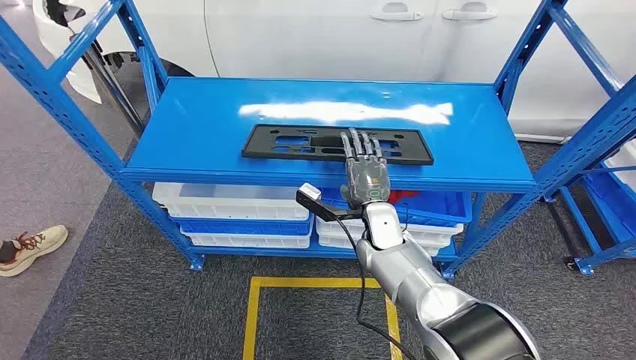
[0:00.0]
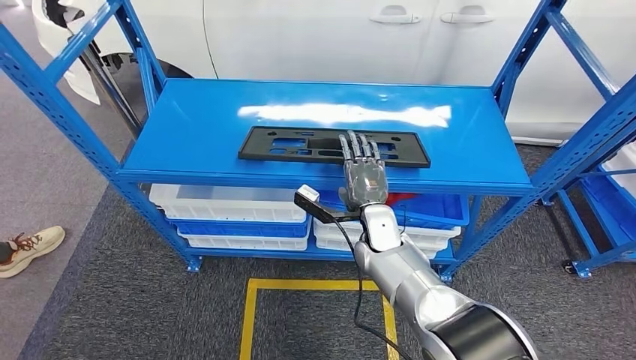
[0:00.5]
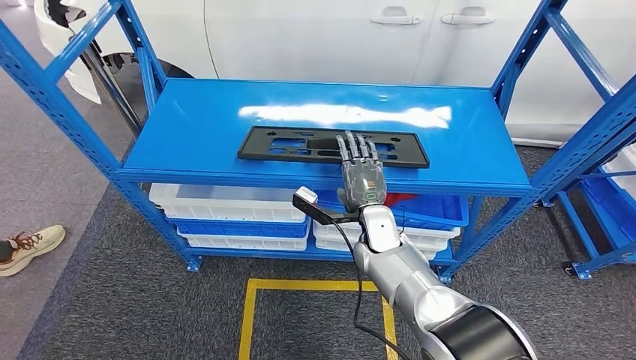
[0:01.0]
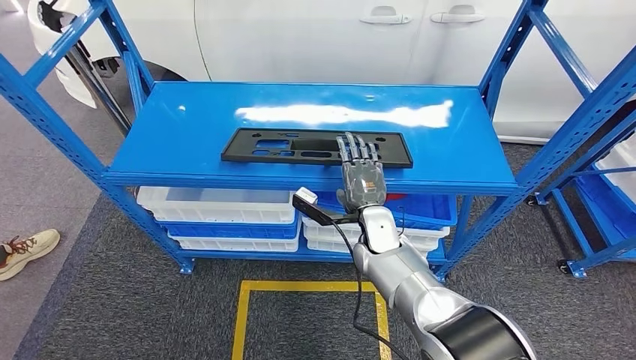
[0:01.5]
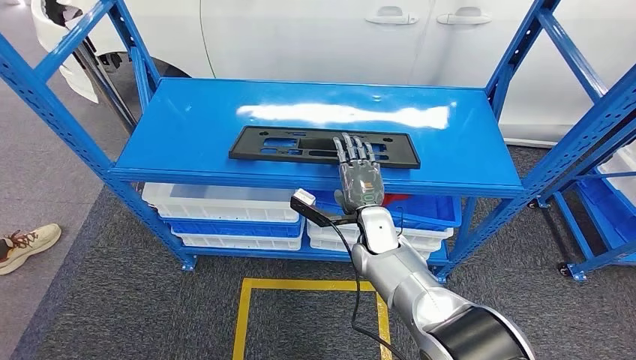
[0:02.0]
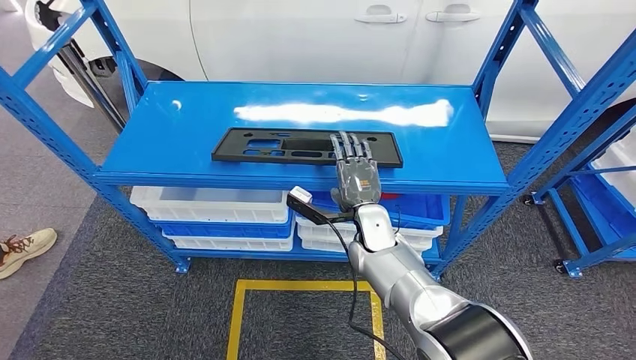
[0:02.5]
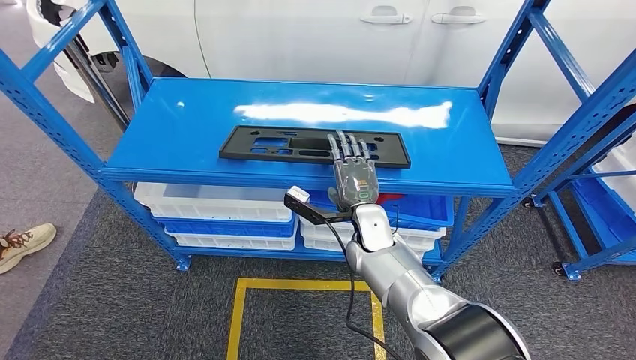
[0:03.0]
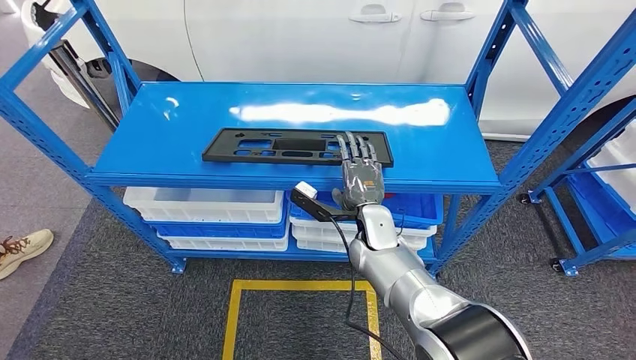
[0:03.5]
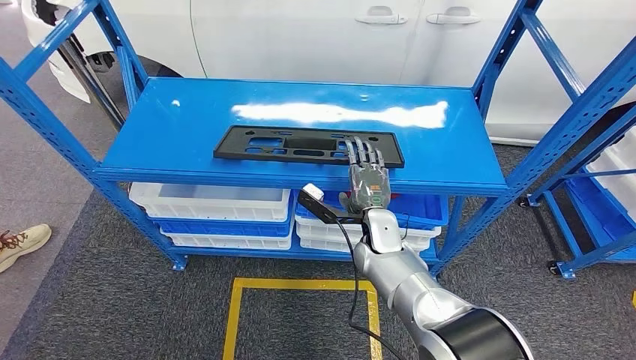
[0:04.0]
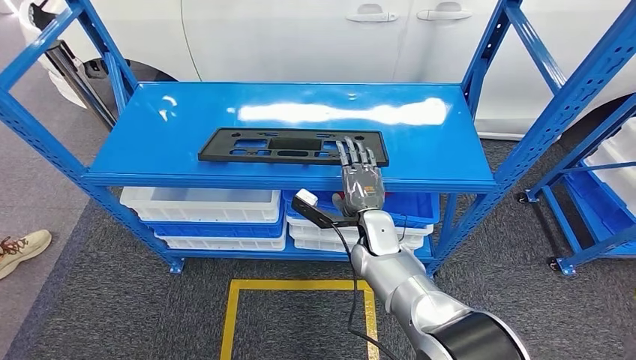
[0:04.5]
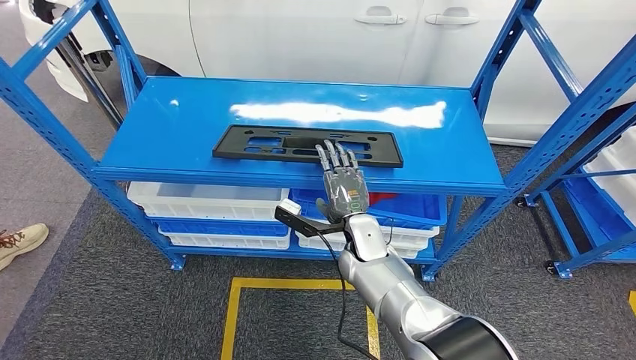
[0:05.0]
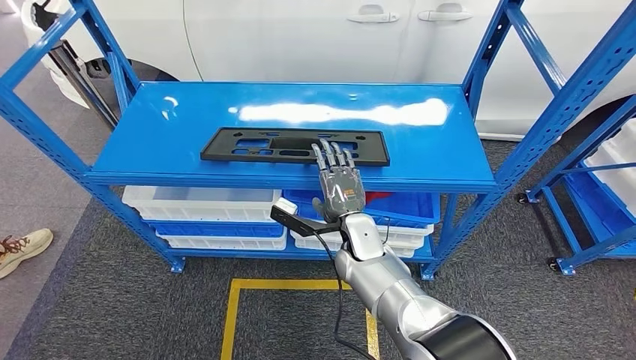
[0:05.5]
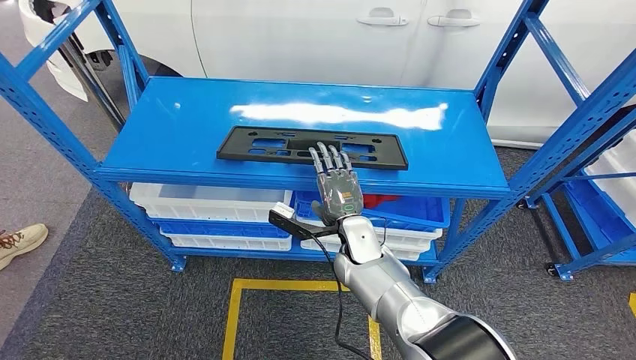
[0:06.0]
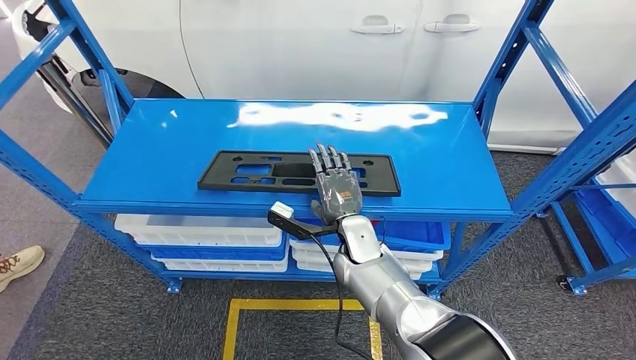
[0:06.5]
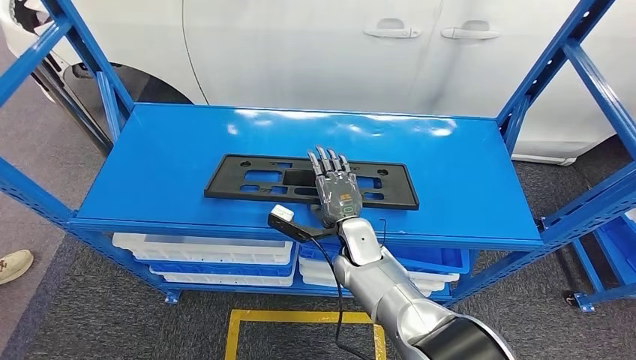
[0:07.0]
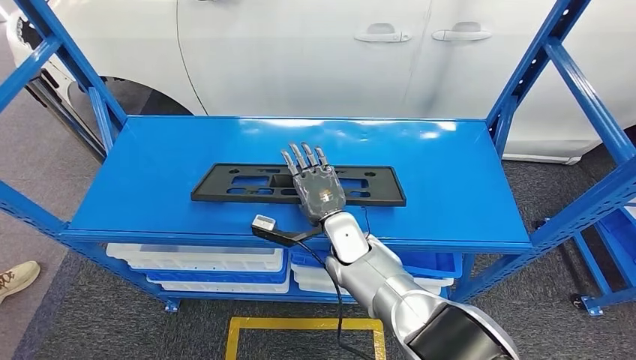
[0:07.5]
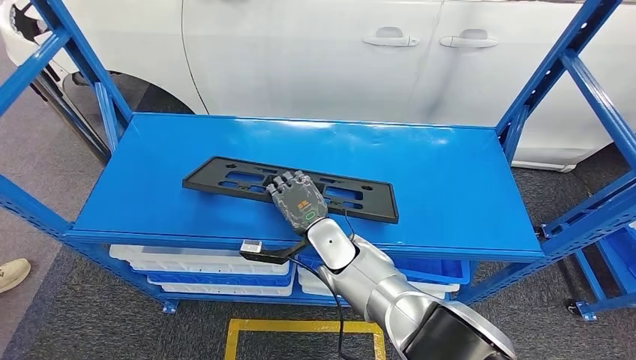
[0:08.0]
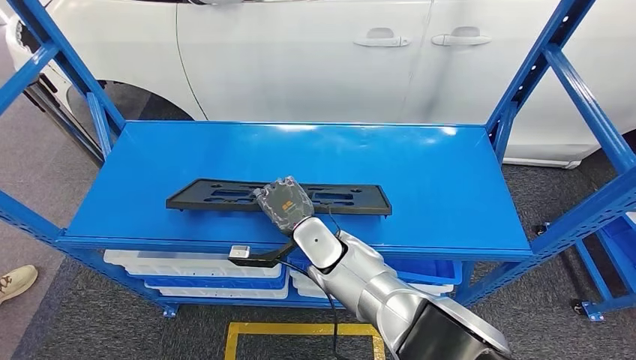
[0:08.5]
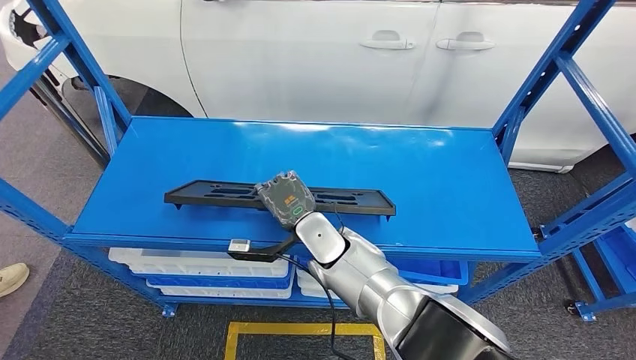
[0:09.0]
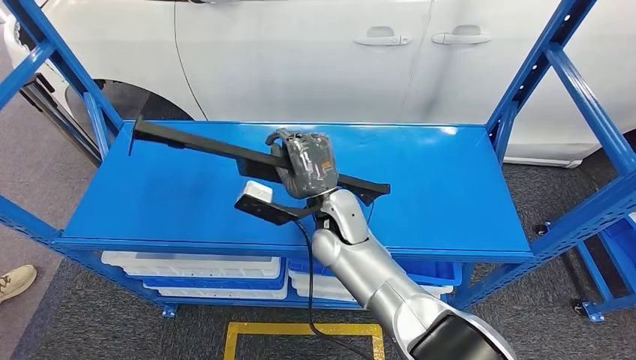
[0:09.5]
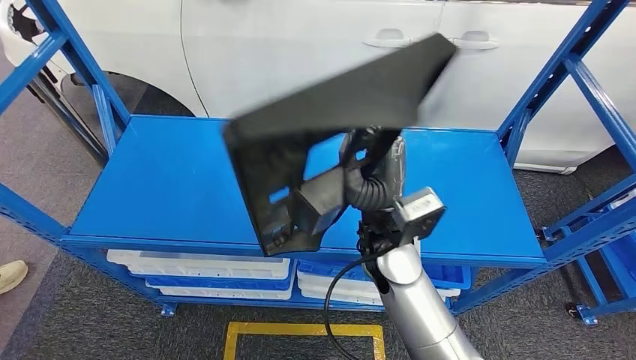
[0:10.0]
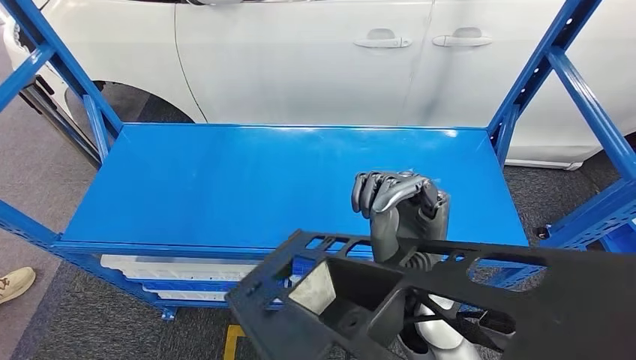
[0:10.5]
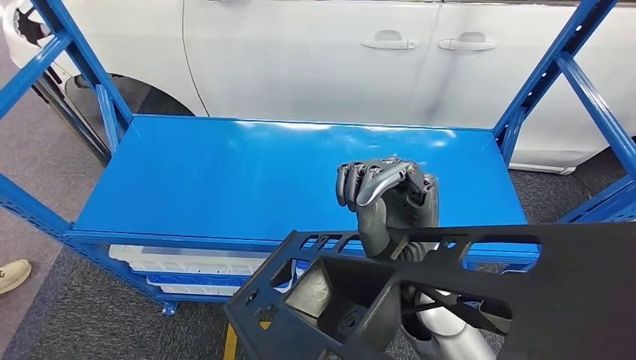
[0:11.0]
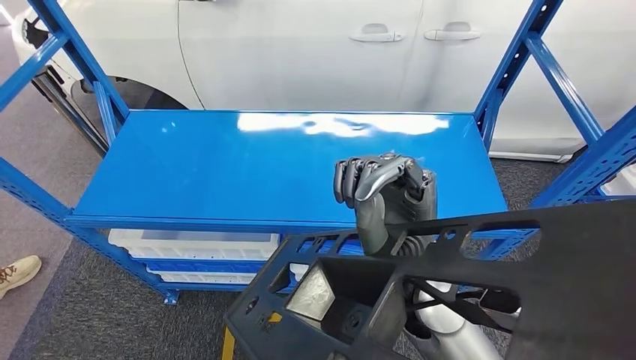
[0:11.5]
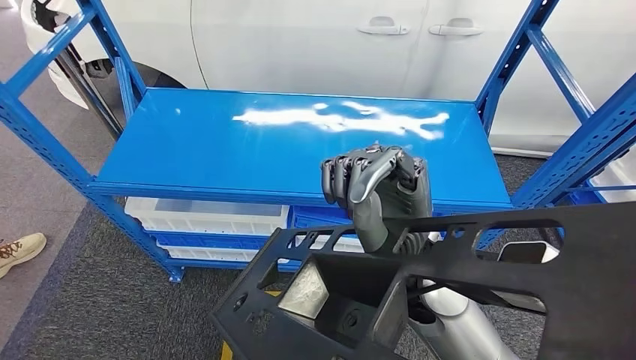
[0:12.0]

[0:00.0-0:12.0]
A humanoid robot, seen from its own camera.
Step, 0:00.0 to 0:10.0: Pick up the large material from the shelf.
0:04.0 to 0:06.0: The hands stay close to where they were, moving slightly.

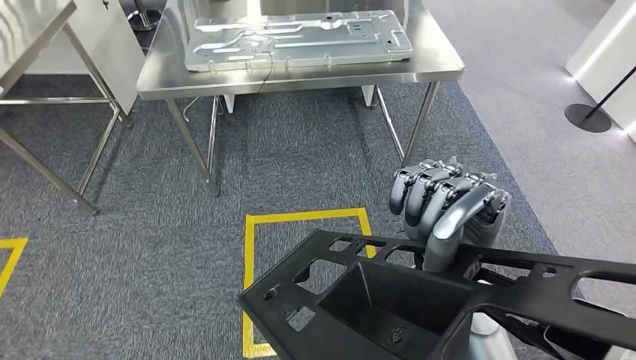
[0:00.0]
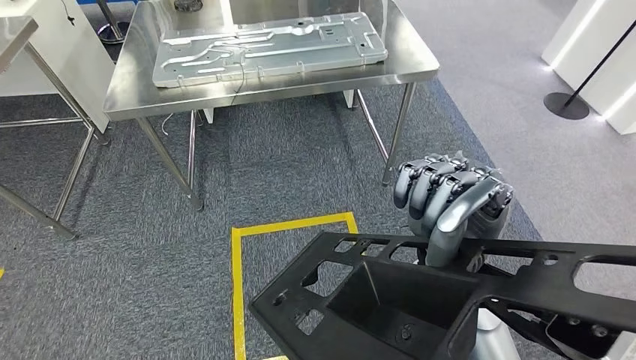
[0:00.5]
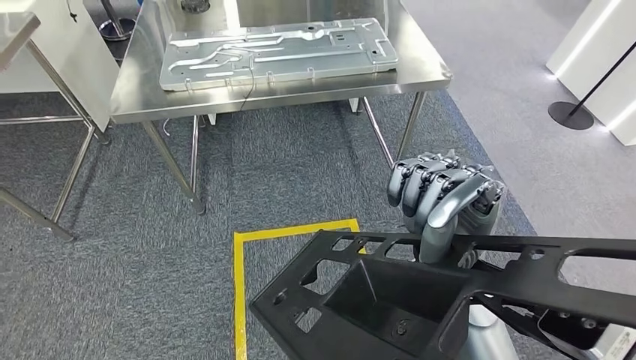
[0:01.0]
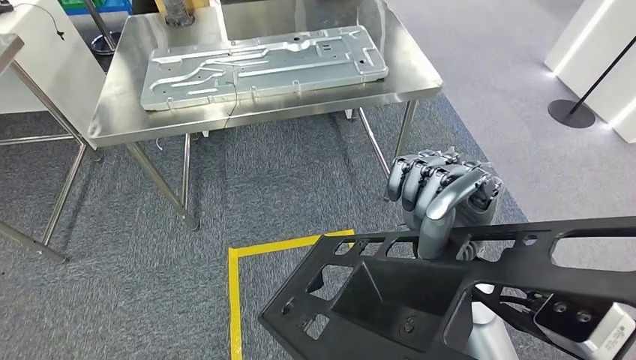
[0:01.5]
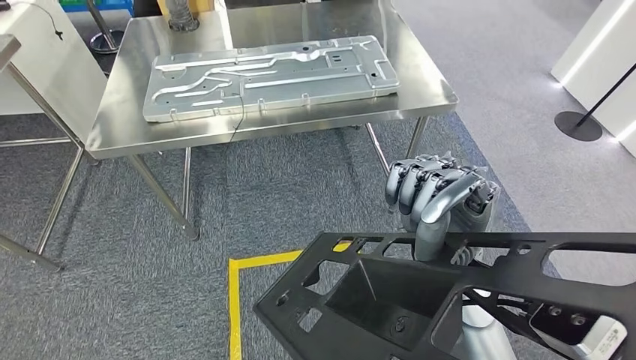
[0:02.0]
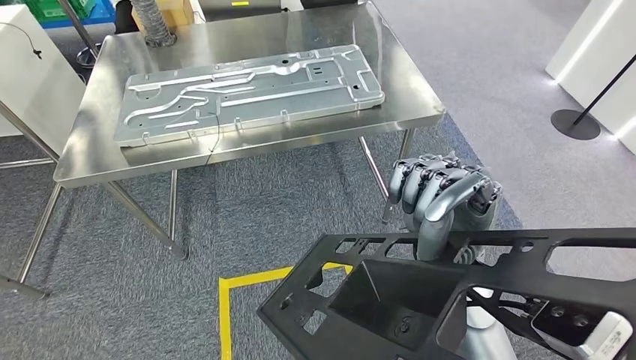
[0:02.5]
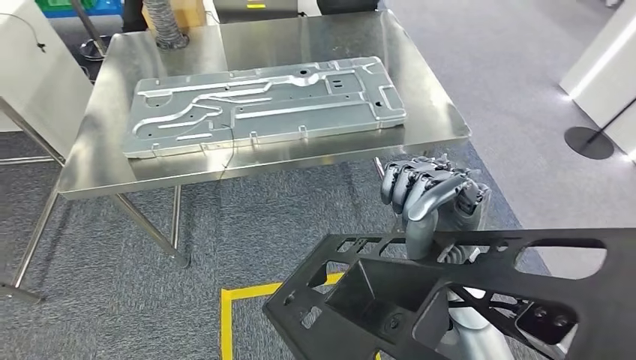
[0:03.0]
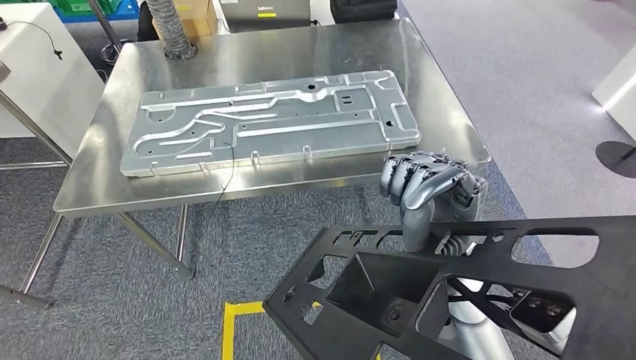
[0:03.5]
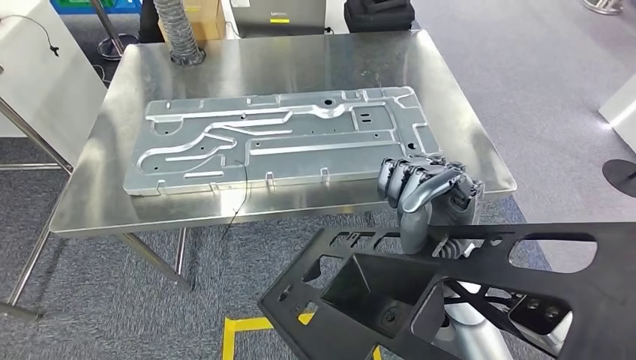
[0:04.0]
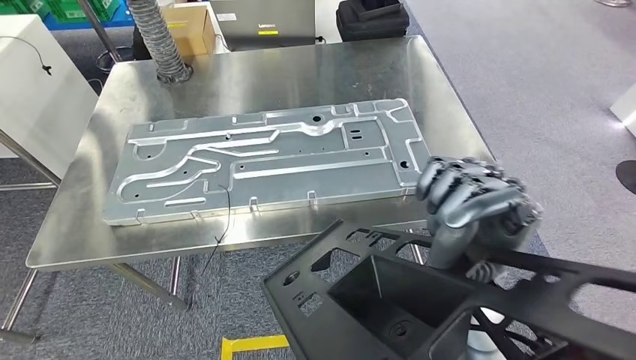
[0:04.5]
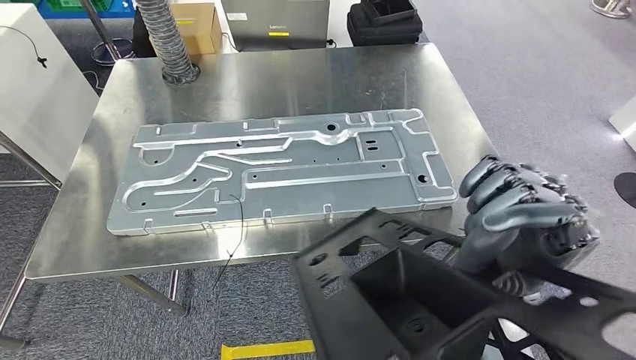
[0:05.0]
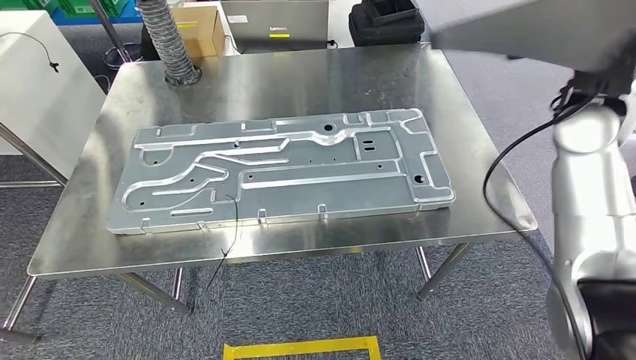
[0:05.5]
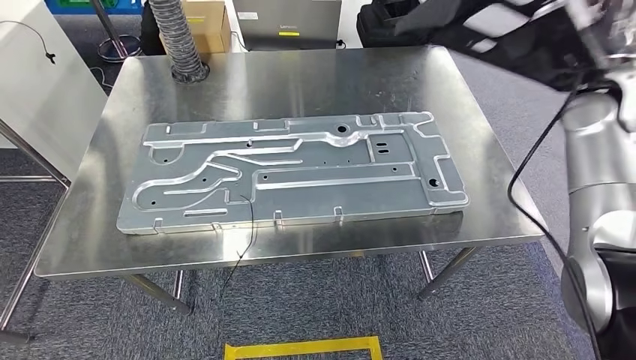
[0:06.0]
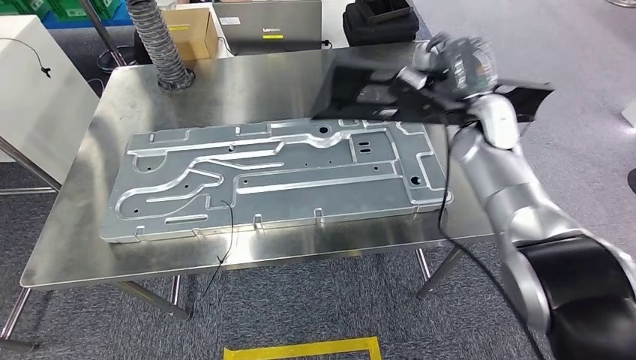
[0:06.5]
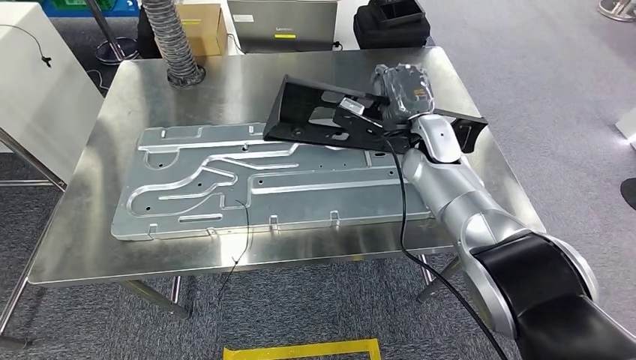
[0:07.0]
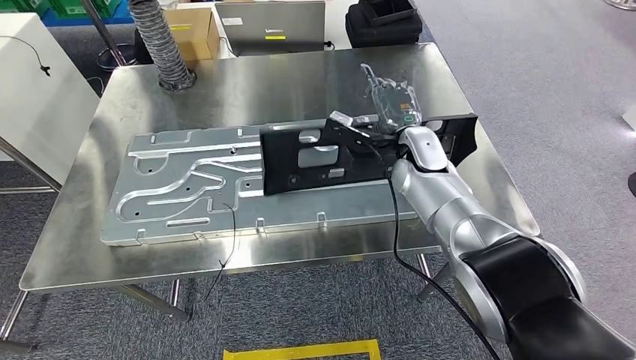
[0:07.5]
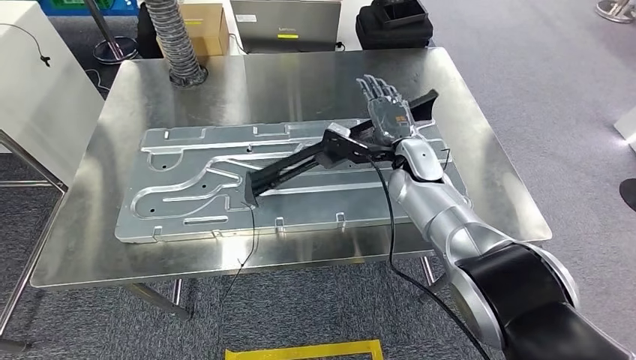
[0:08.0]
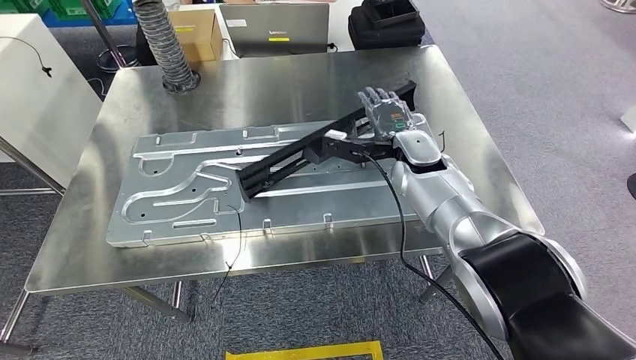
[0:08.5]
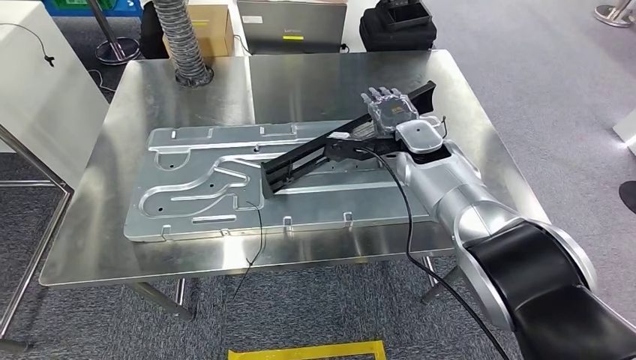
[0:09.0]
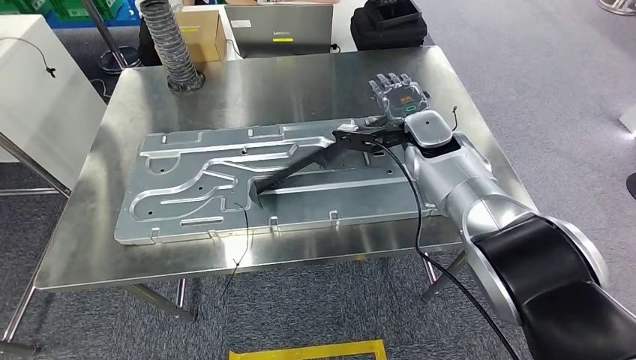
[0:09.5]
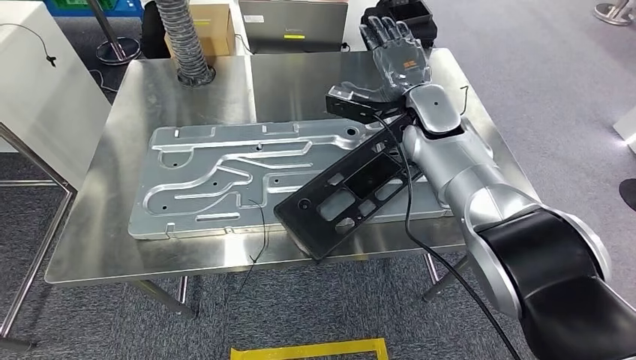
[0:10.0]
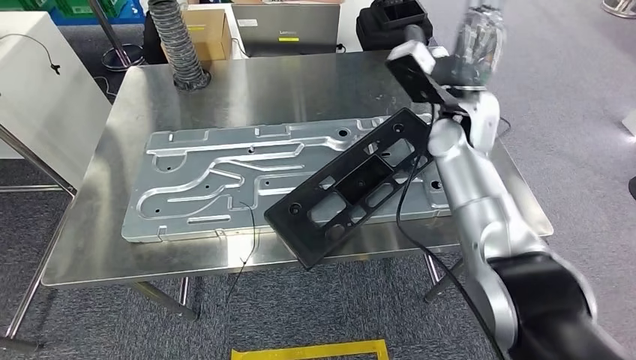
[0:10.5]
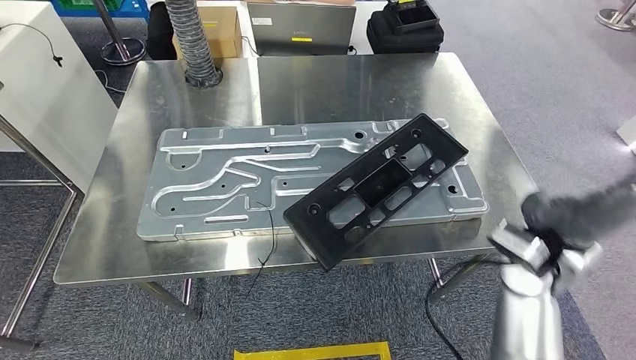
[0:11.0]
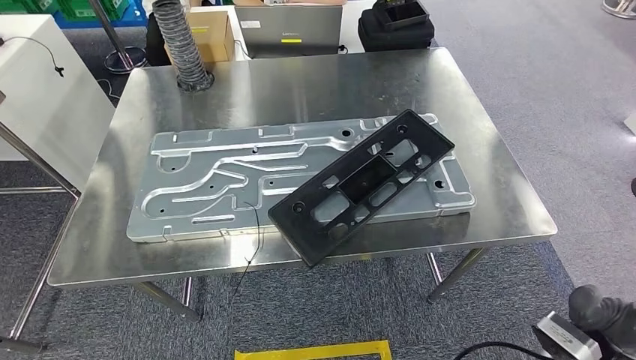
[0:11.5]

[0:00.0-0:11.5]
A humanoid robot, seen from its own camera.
Step, 0:00.0 to 0:04.0: Move the large material to the front of the workbench.
